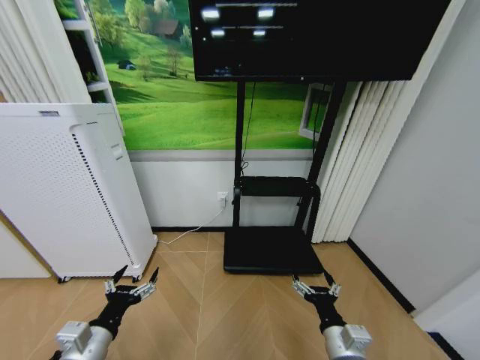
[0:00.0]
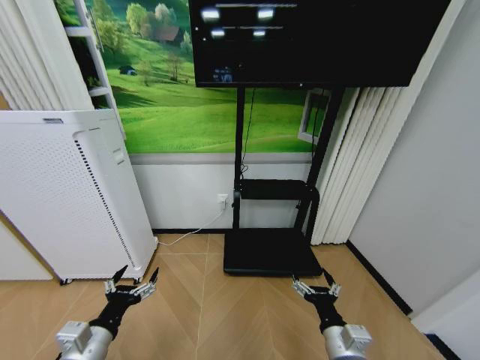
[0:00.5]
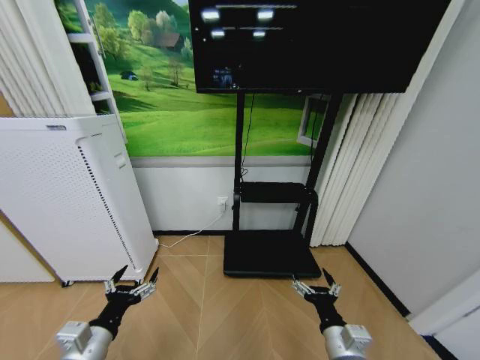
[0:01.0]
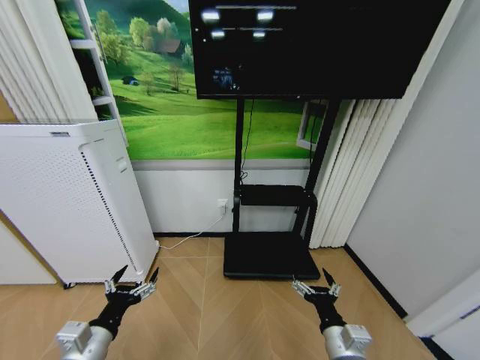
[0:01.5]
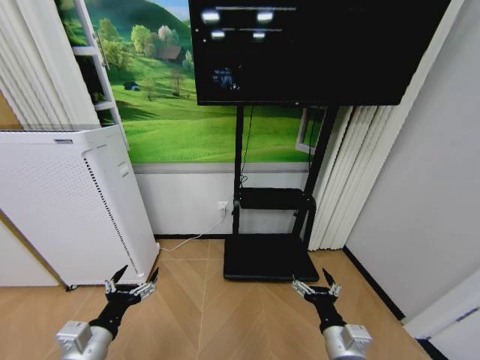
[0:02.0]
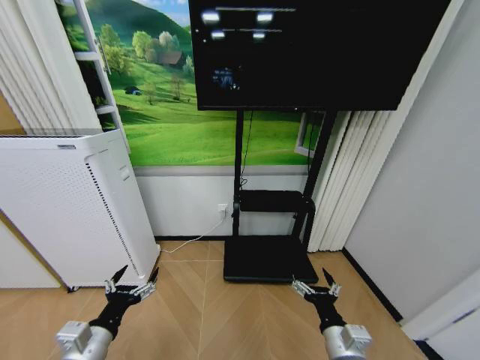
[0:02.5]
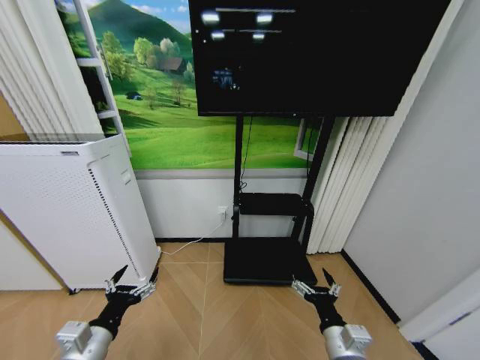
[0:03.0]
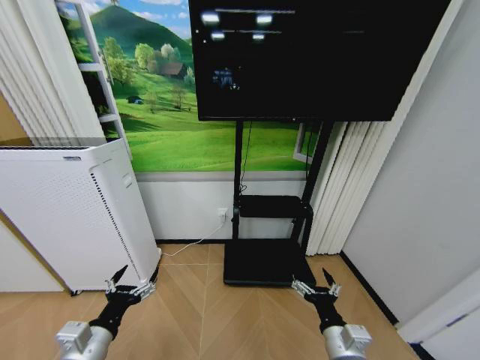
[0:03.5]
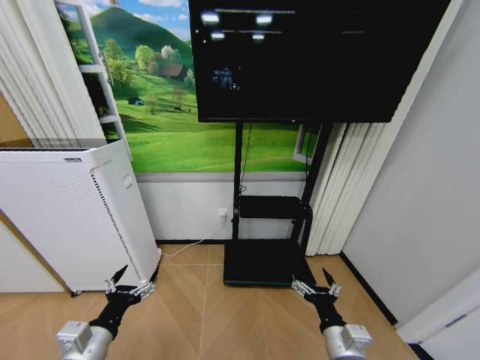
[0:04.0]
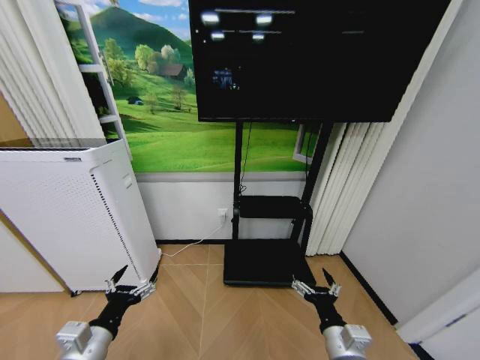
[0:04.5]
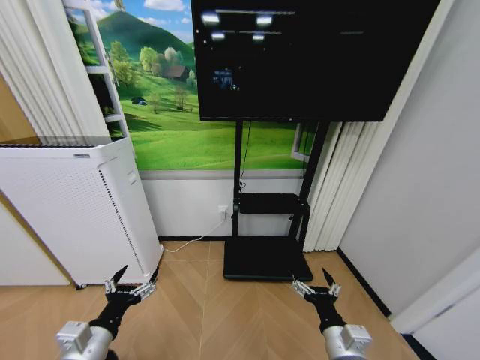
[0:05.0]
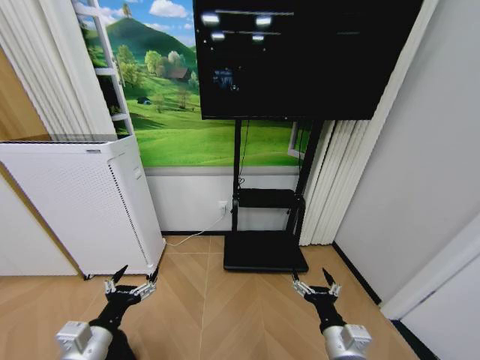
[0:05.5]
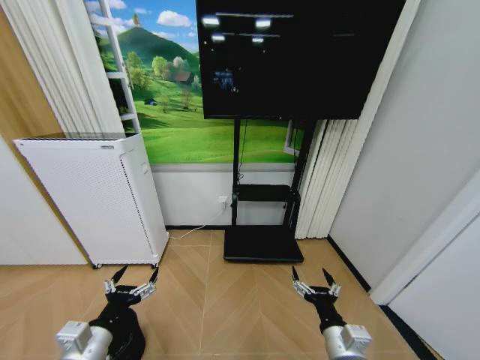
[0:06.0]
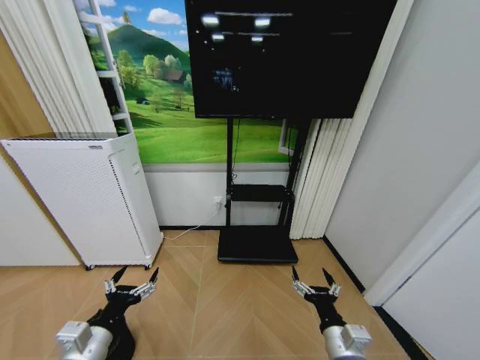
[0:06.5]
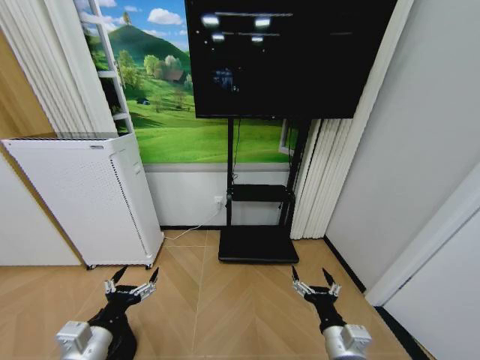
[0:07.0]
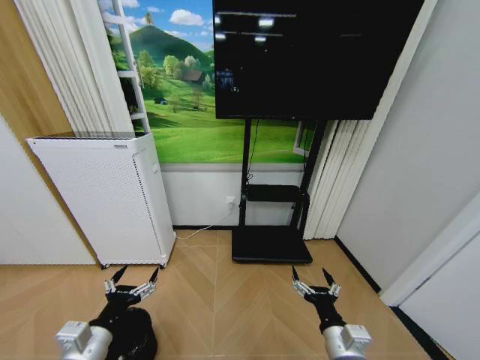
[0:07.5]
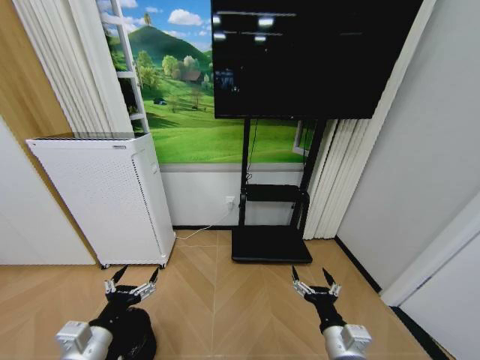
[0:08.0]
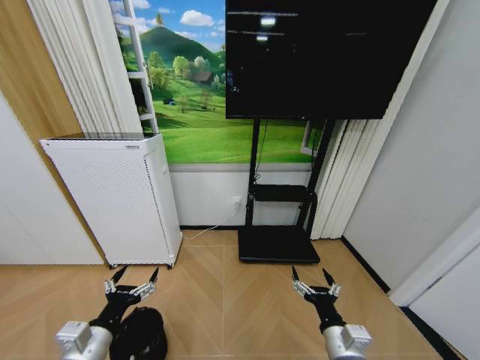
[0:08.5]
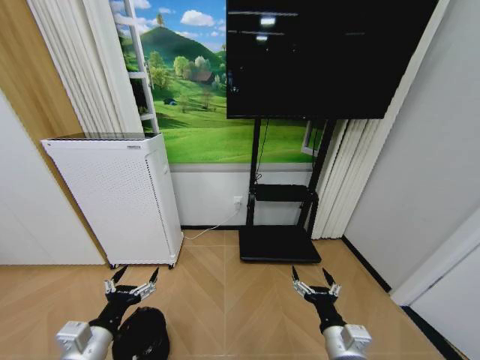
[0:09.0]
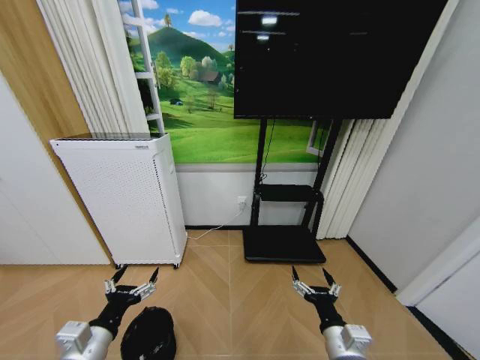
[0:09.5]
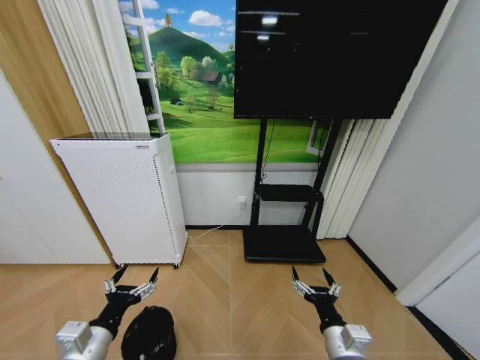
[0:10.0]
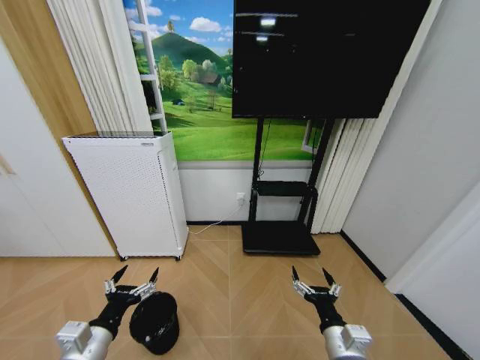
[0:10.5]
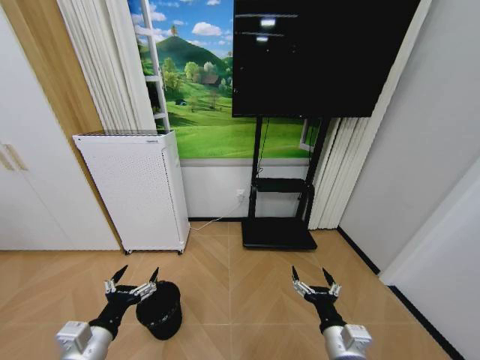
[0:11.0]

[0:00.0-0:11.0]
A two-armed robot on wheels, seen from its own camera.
Task of the whole recording: Pick up the trash bin and place the garbage on the floor into it.
0:00.0 to 0:03.5: Both grippers stay about where they are.
0:07.5 to 0:09.0: Both grippers stay about where they are.

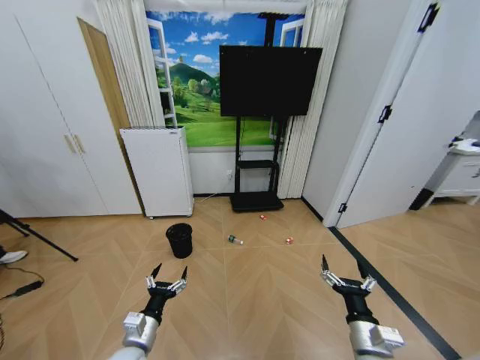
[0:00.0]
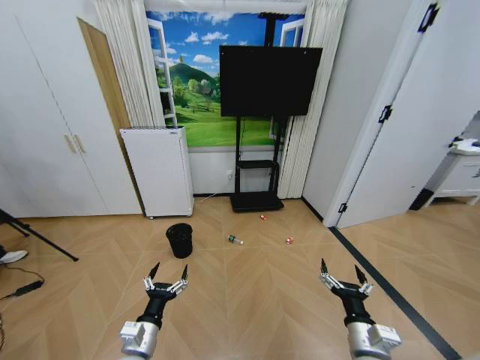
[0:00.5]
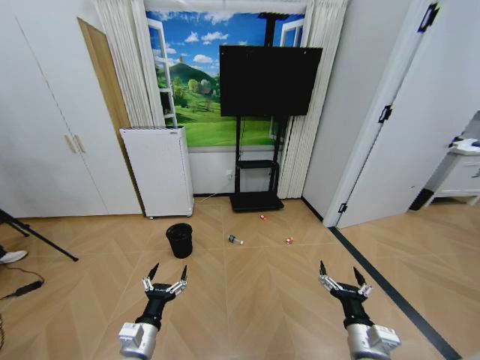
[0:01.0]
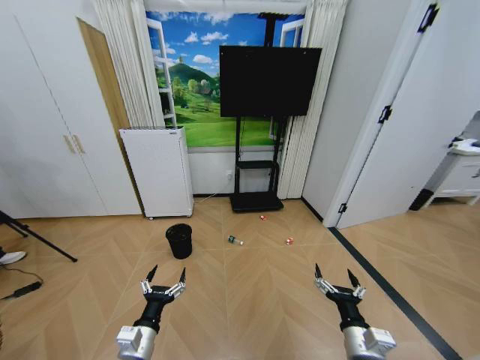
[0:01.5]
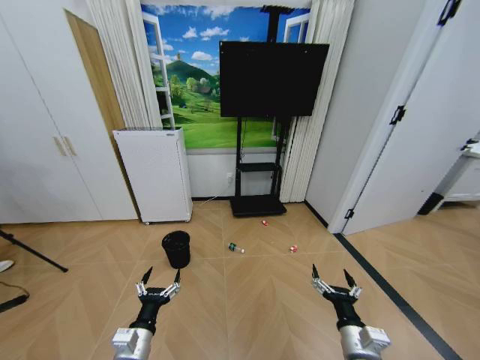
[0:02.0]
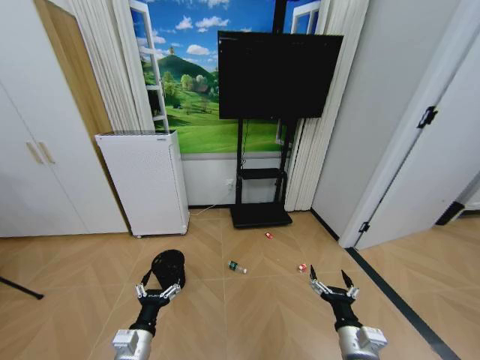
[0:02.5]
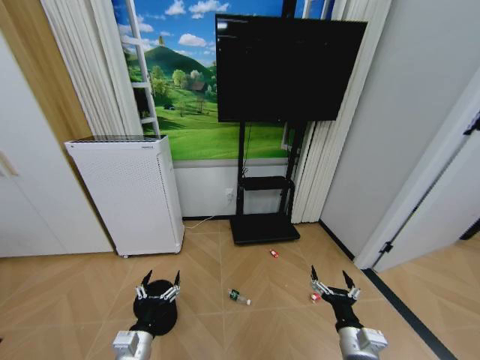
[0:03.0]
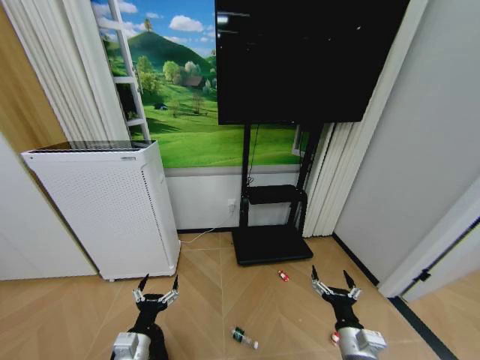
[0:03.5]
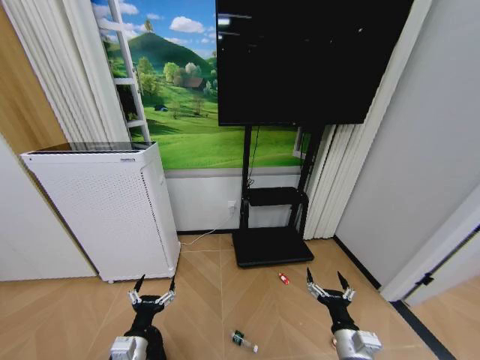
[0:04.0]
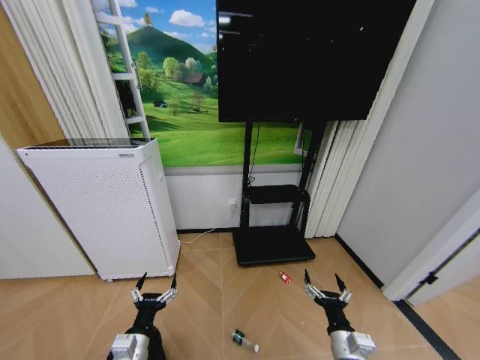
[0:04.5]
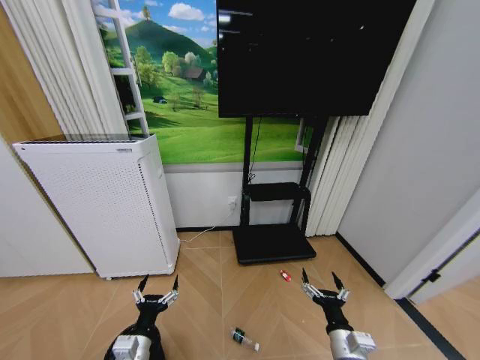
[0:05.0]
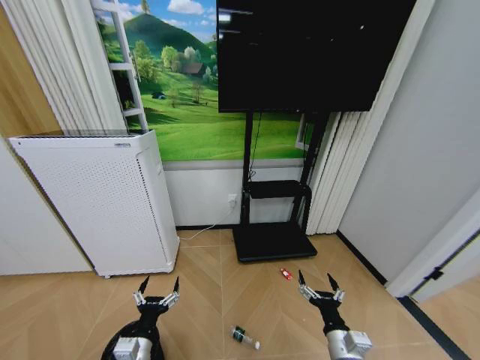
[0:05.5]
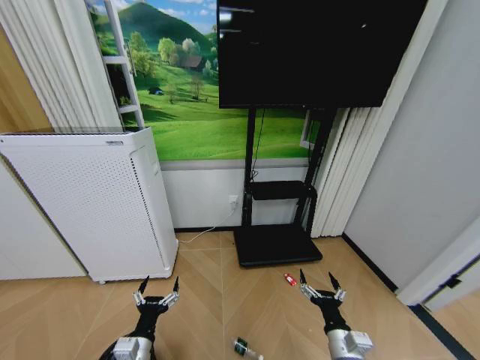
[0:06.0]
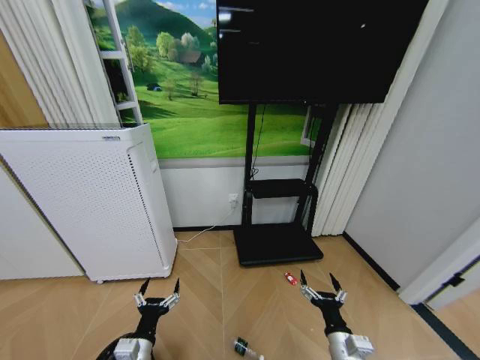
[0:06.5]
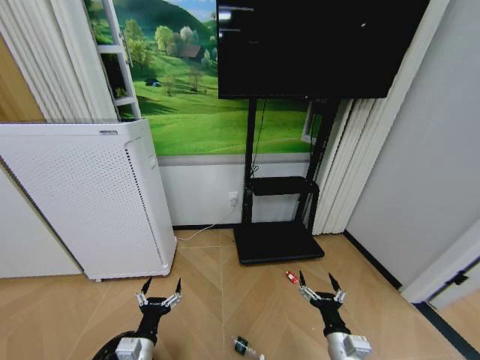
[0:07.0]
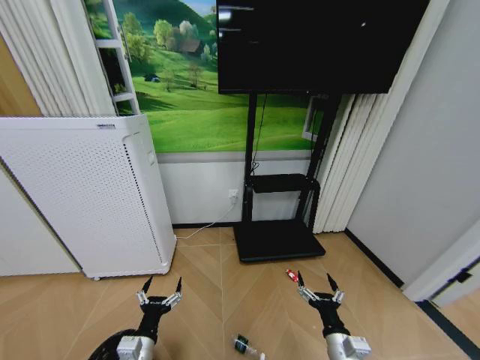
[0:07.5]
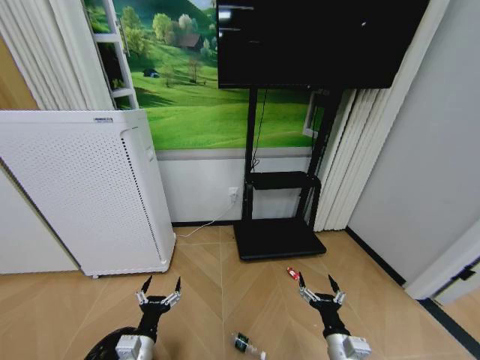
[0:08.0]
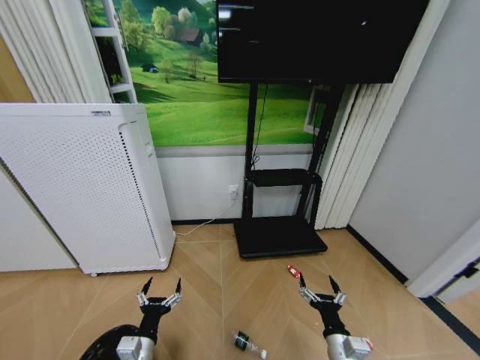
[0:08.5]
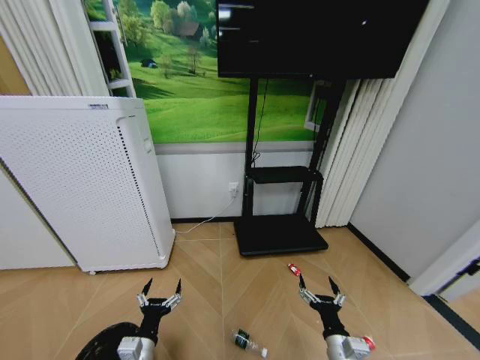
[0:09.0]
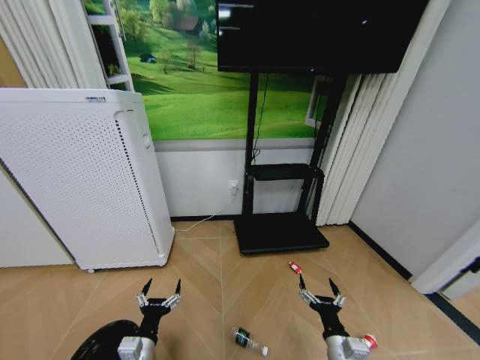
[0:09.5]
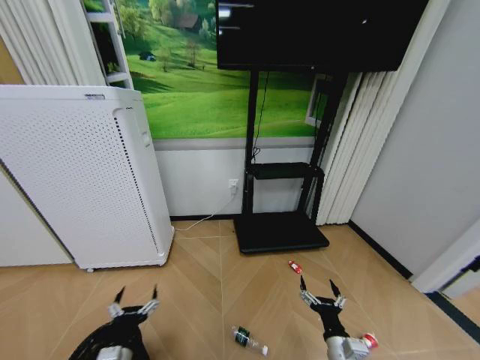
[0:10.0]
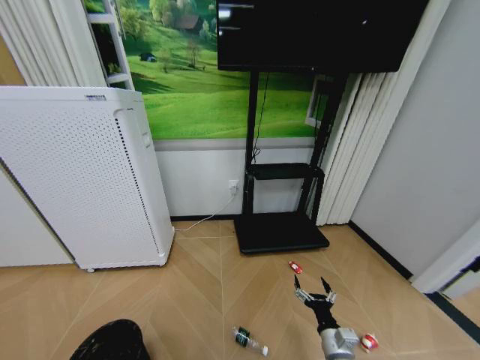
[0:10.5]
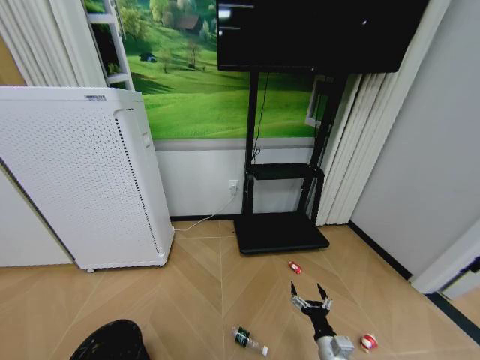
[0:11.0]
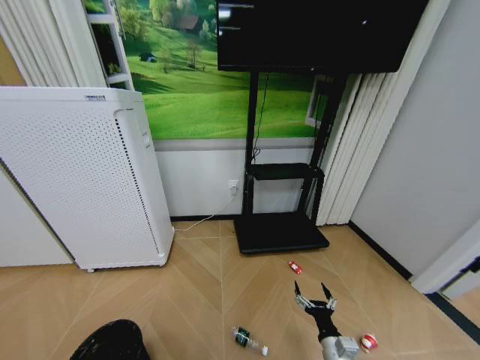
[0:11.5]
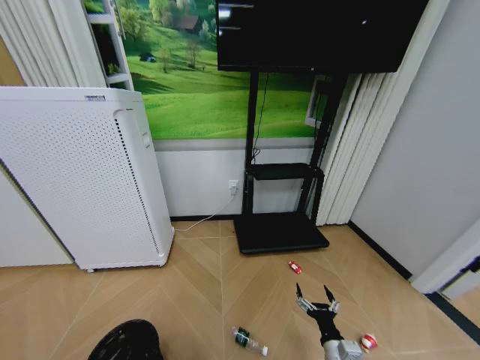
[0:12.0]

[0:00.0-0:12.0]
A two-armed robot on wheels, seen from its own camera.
Task of the whole recording: Pick up the trash bin and place the garbage on the floor into it.
0:08.0 to 0:10.0: The grippers stay close to where they were, moving slightly.
0:10.0 to 0:12.0: The left gripper shifts about 15 cm to the left and backward, and closes.

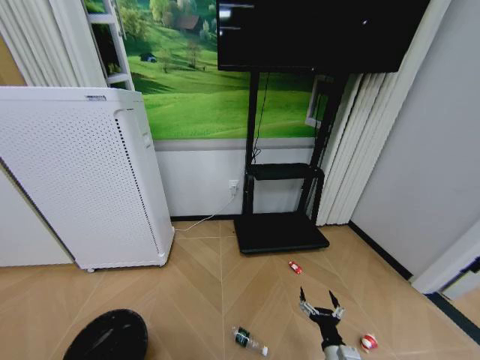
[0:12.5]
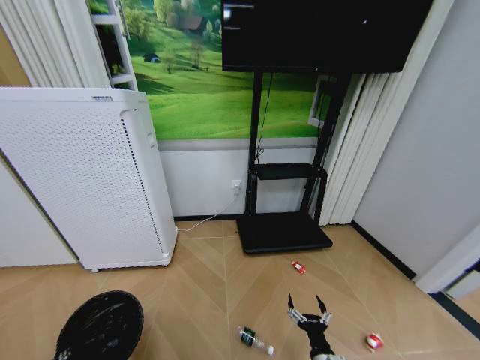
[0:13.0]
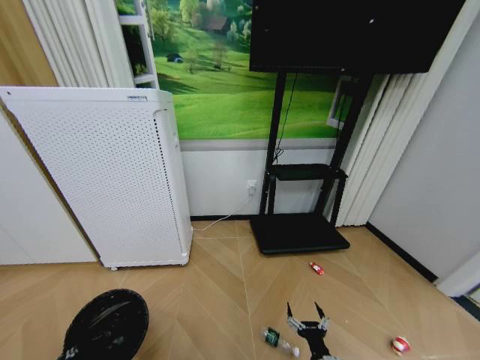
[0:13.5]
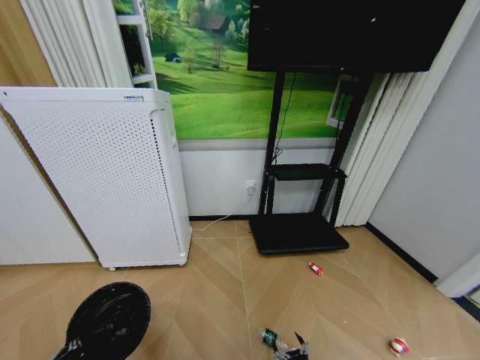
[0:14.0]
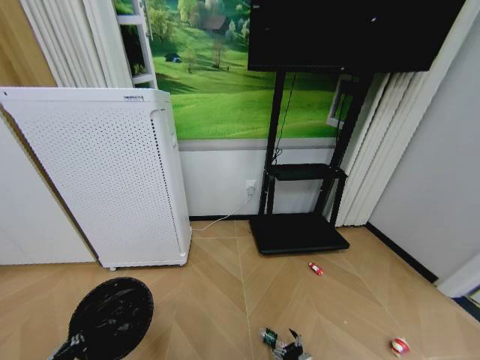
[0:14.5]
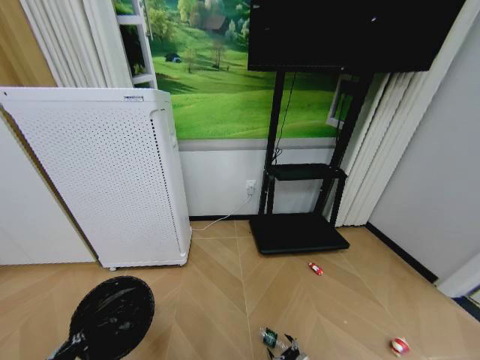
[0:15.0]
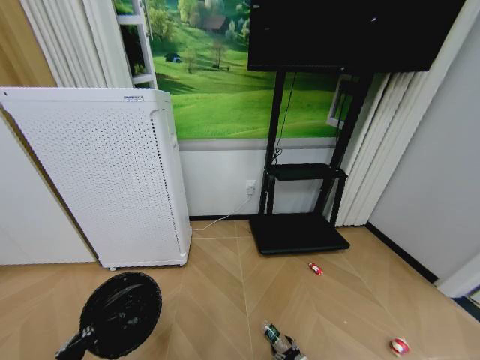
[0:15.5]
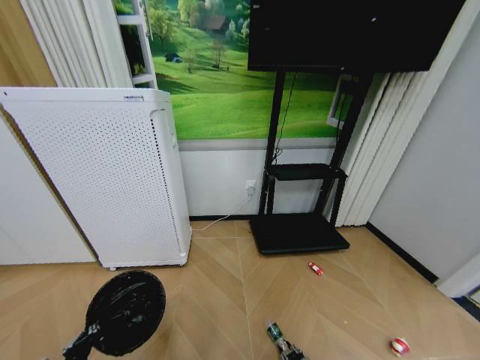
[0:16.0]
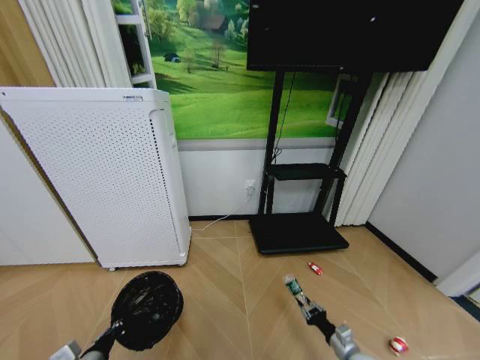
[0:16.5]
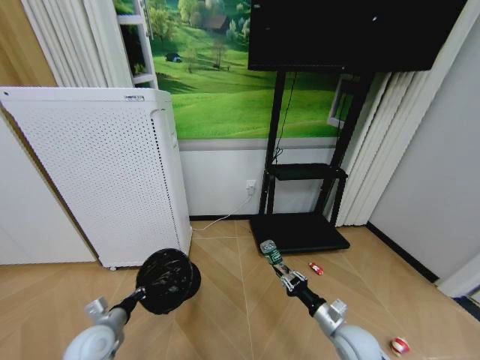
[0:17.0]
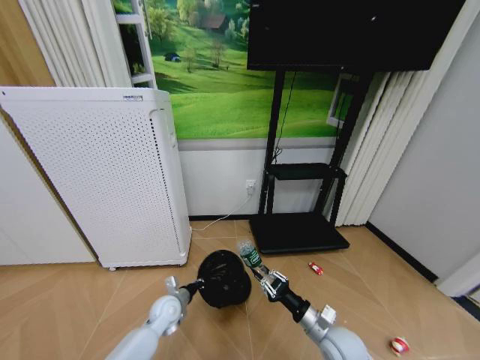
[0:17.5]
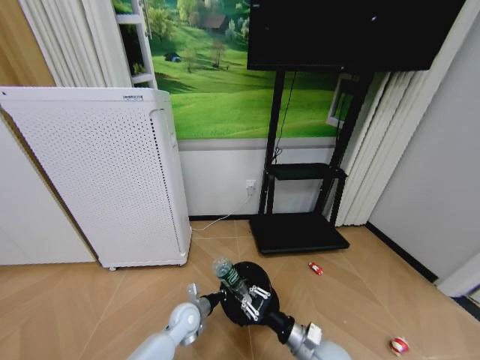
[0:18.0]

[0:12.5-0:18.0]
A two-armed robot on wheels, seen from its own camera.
Task of the whole recording: Pick up the trash bin and place the garbage on the floor into it.
0:12.5 to 0:14.5: The left gripper ends up approximately 5 cm from where it was. The right gripper travels downward by roughly 15 cm.
0:16.0 to 0:18.0: The right gripper moves upward, about 25 cm. Meanwhile the left gripper shifts some 30 cm forward, to the right and downward.
